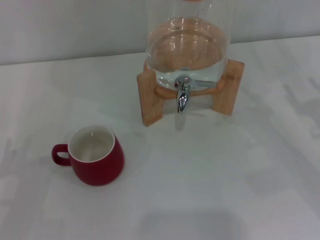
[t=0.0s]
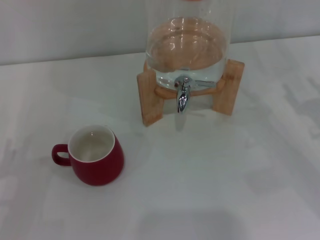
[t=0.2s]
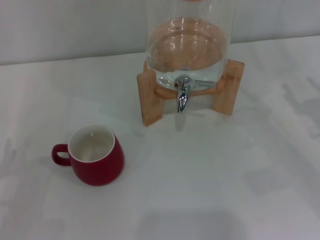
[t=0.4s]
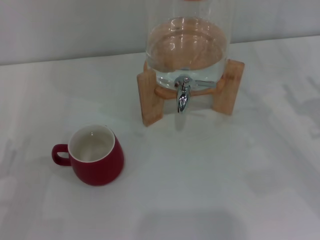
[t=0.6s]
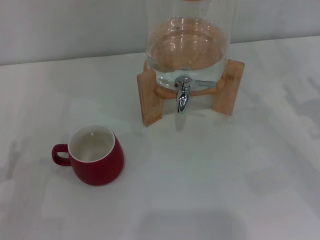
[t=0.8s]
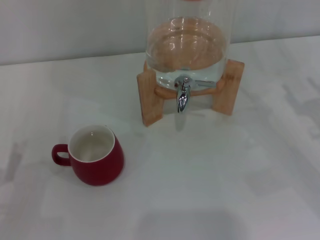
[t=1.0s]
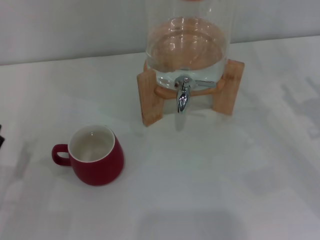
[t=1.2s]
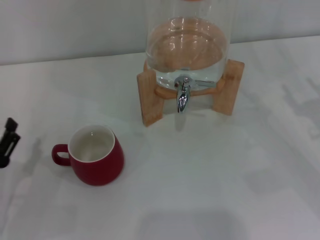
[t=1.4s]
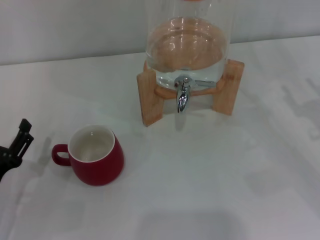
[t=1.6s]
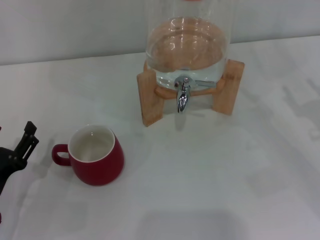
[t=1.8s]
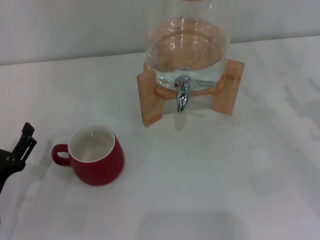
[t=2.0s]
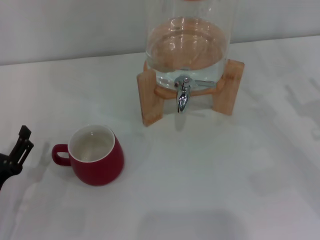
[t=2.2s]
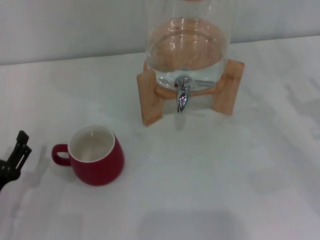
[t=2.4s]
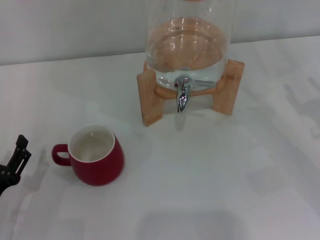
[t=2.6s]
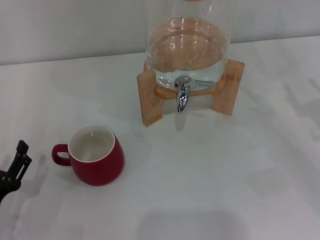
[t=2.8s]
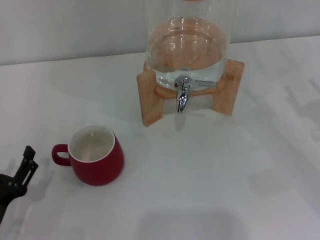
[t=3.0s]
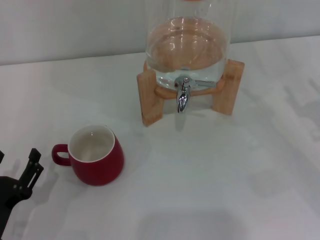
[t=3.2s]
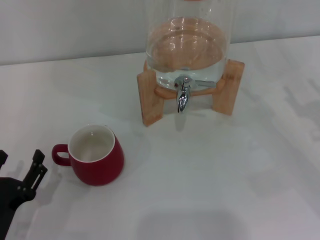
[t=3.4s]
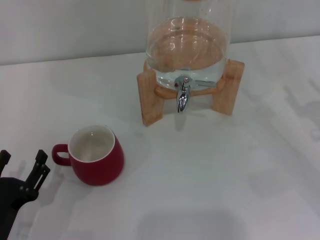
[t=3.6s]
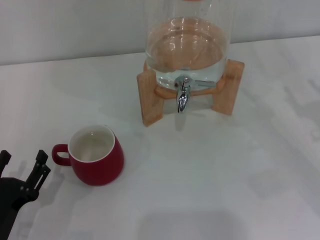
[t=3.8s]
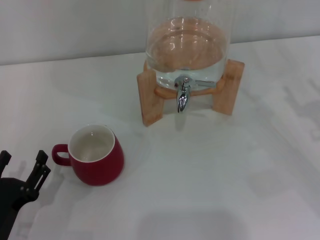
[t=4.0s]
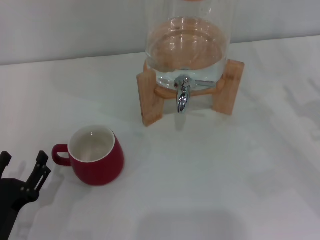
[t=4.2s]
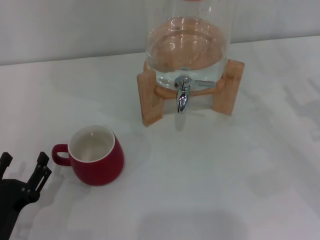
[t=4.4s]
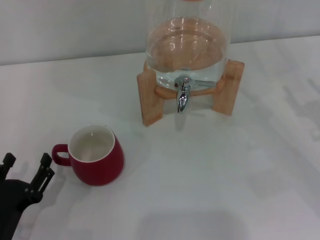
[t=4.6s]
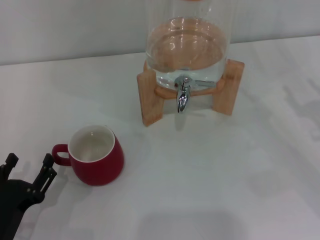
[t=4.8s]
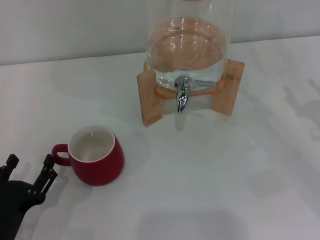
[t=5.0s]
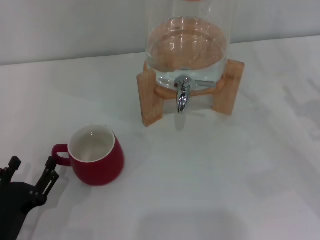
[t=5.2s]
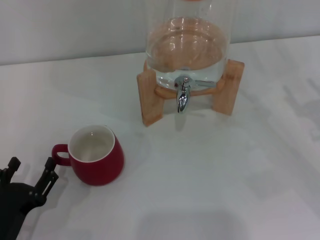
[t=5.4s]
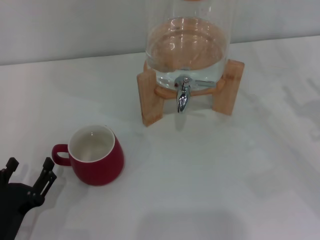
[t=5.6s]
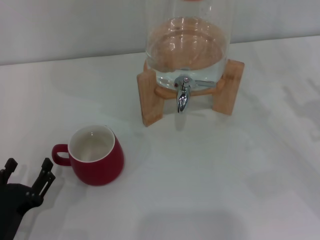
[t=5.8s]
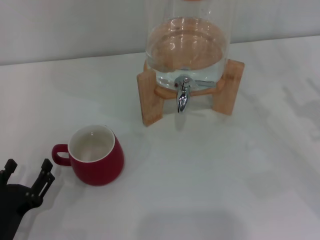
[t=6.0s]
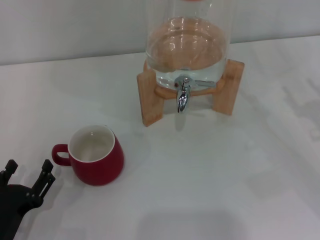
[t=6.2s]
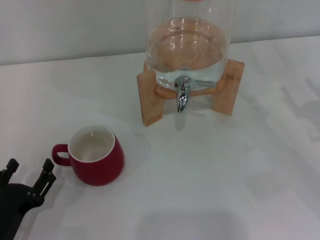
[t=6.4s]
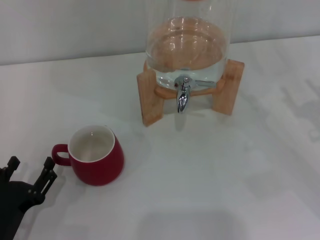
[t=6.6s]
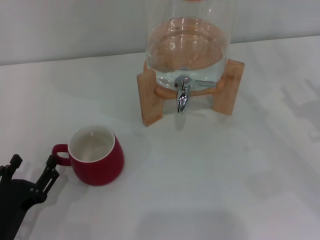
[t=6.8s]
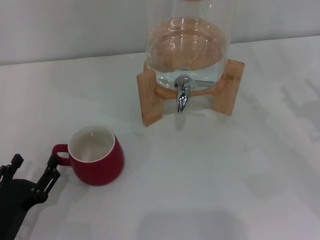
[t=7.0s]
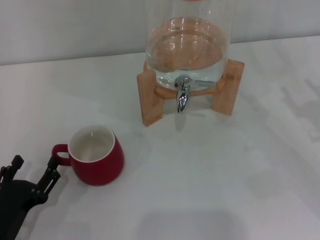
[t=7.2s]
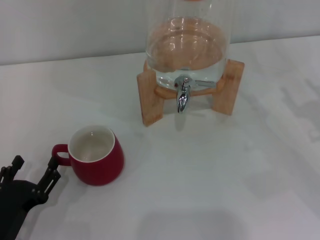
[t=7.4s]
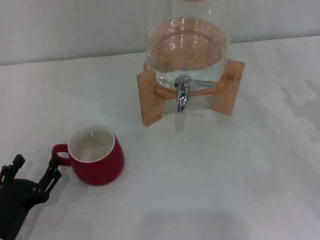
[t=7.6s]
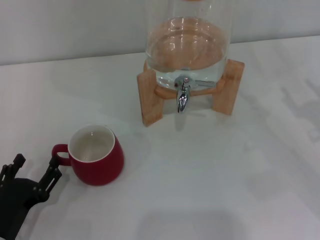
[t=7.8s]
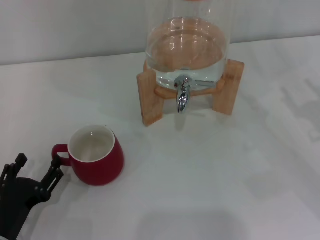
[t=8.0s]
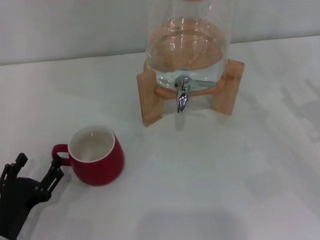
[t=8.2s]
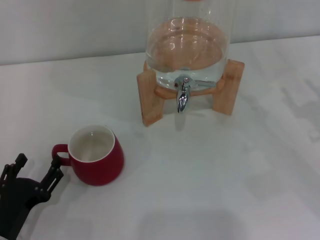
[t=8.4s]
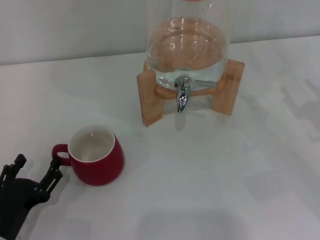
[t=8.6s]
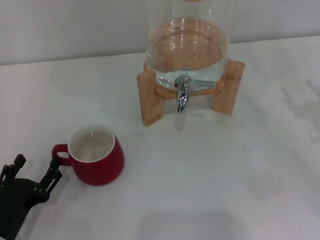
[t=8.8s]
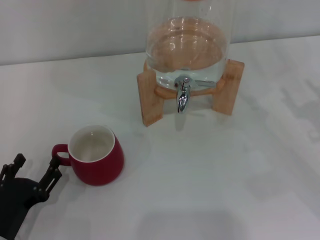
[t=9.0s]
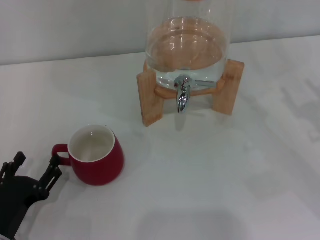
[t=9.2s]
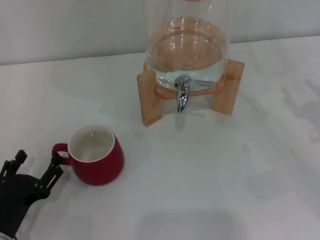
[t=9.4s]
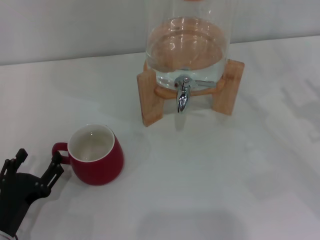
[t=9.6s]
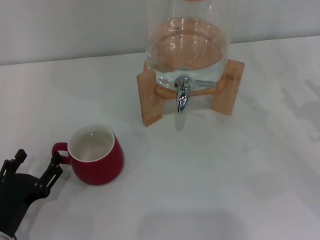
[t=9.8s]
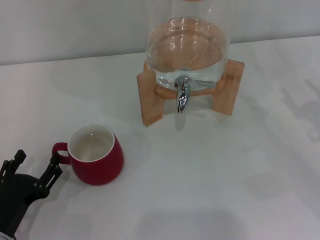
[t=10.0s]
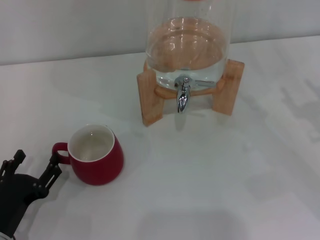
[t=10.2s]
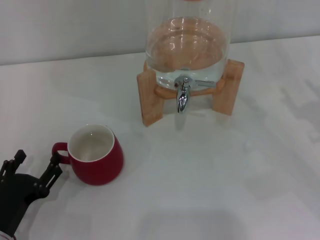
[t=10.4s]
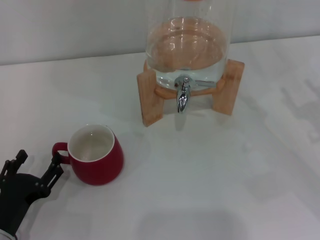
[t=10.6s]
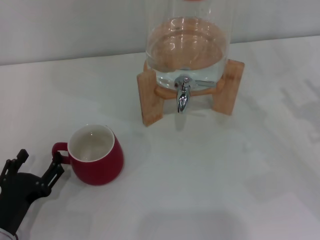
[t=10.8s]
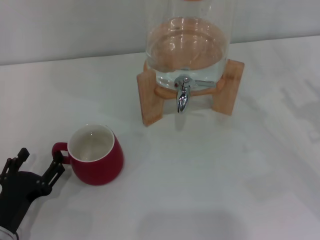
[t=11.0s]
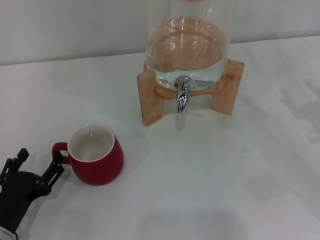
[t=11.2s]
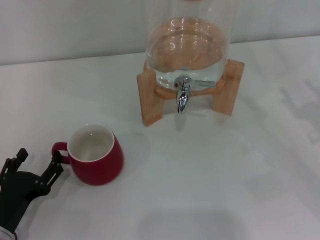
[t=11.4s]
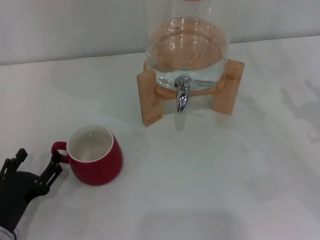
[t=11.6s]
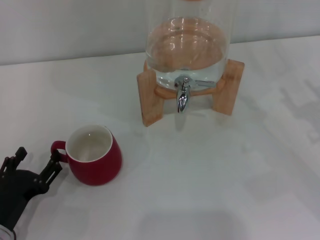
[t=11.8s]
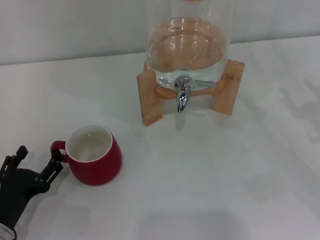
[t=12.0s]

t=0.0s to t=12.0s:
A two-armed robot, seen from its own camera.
Task of the whole recording: the left gripper pick up the red cup and place it horizontally under the faucet, the right gripper turn on the faucet to fill the cup, and then turn off the faucet.
t=0.0s to t=3.0s: There are only small adjustments of the grippers.
t=3.0s to t=4.4s: The grippers move only a little.
t=4.4s to t=6.0s: Both grippers stay about where they are.
t=6.0s to t=7.6s: Both grippers stay about where they are.
t=7.6s to t=10.4s: Both grippers stay about where they are.
t=10.4s to t=12.0s: Both grippers stay put.

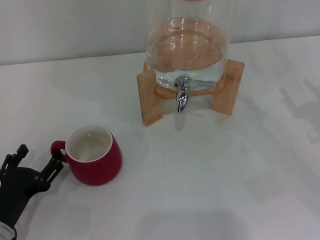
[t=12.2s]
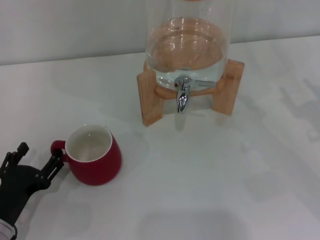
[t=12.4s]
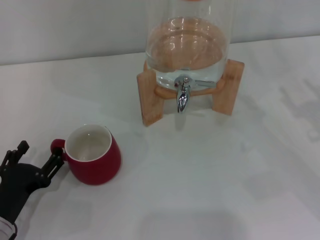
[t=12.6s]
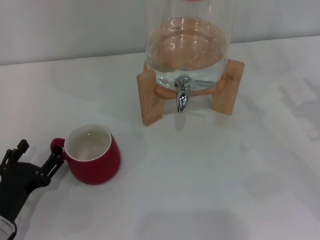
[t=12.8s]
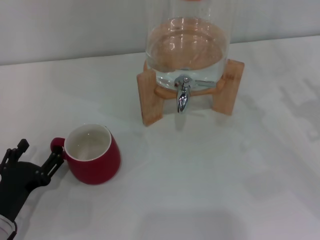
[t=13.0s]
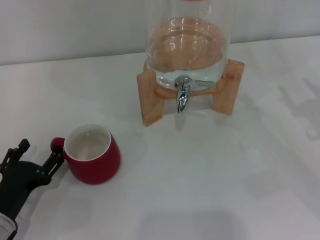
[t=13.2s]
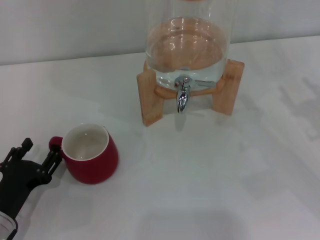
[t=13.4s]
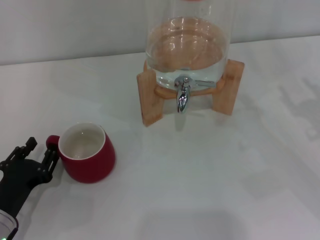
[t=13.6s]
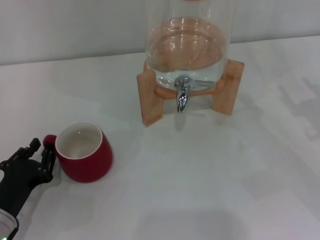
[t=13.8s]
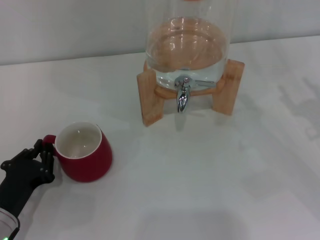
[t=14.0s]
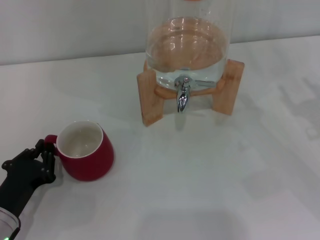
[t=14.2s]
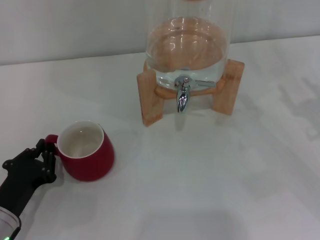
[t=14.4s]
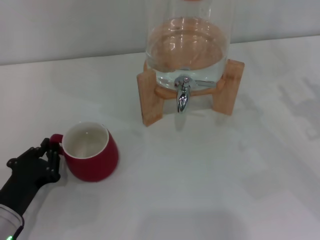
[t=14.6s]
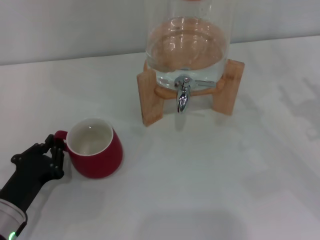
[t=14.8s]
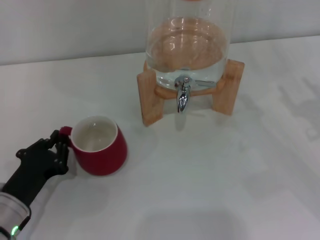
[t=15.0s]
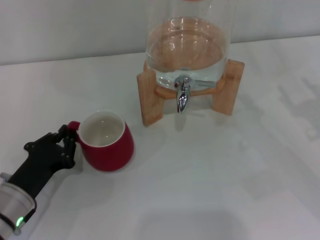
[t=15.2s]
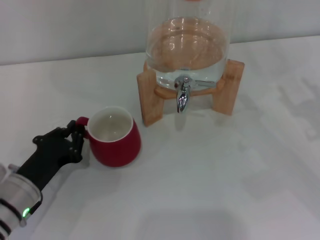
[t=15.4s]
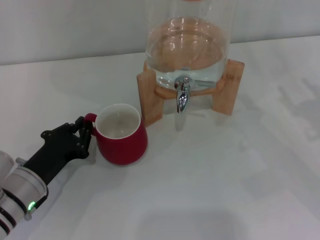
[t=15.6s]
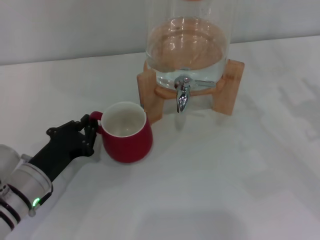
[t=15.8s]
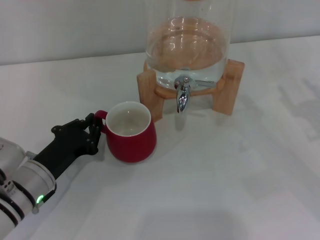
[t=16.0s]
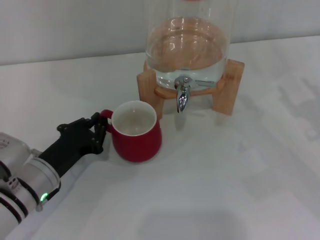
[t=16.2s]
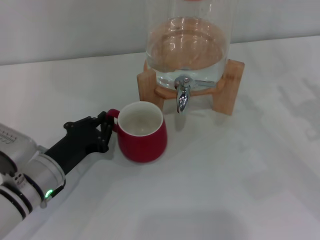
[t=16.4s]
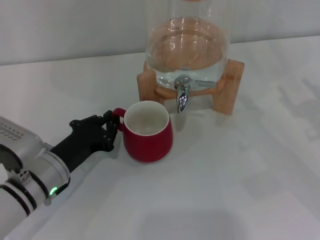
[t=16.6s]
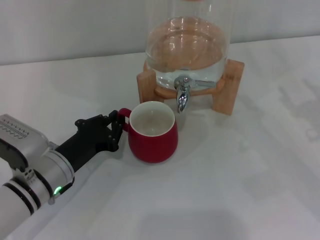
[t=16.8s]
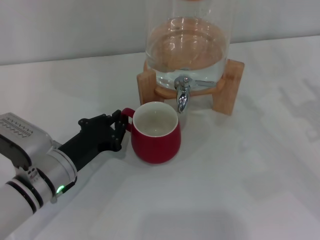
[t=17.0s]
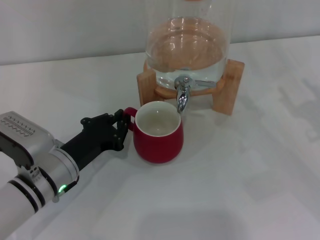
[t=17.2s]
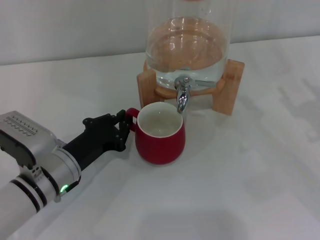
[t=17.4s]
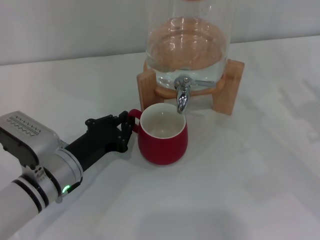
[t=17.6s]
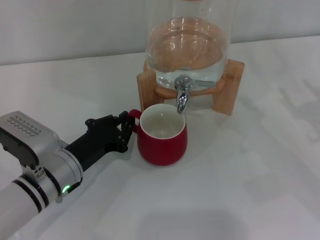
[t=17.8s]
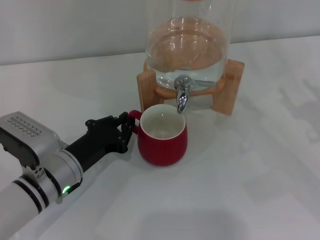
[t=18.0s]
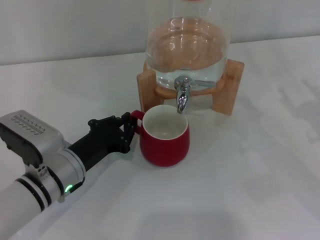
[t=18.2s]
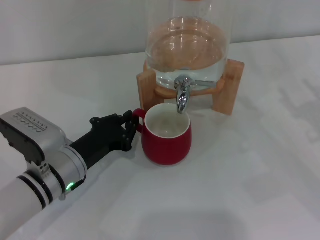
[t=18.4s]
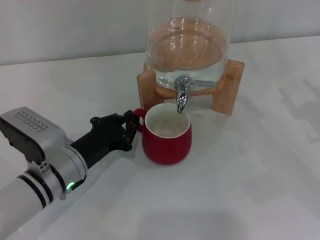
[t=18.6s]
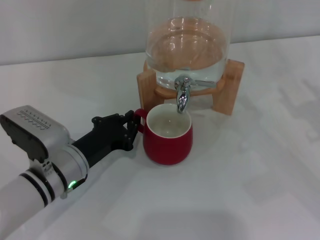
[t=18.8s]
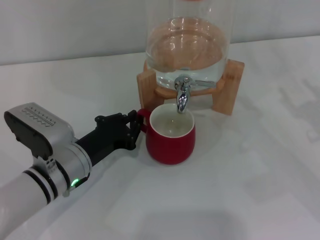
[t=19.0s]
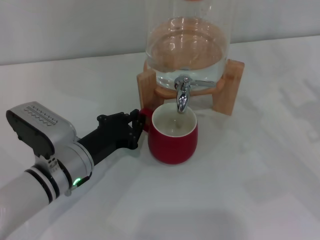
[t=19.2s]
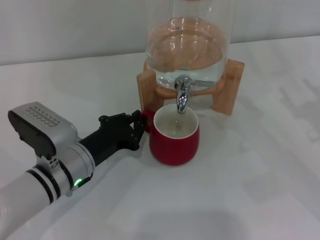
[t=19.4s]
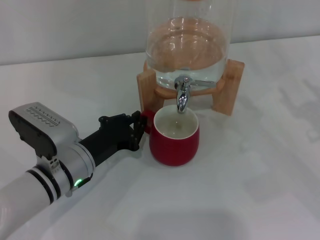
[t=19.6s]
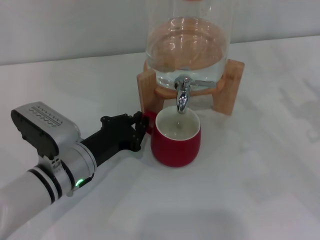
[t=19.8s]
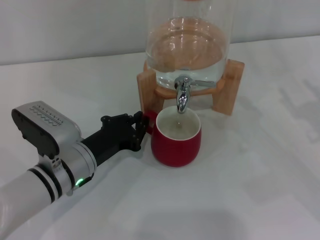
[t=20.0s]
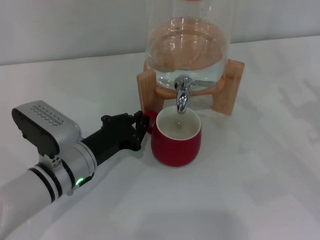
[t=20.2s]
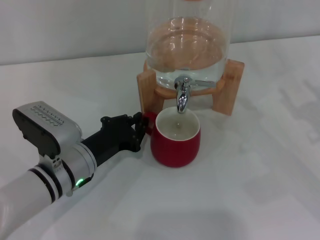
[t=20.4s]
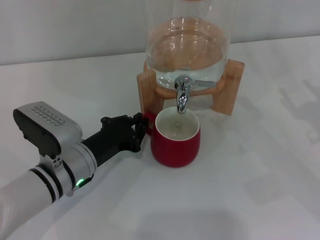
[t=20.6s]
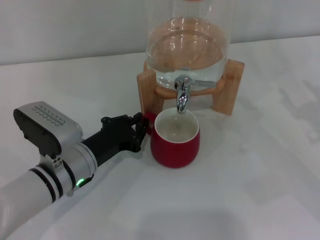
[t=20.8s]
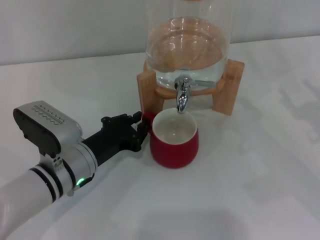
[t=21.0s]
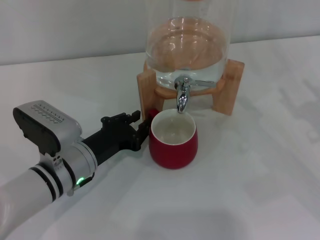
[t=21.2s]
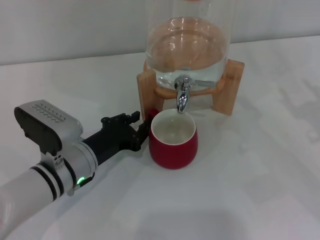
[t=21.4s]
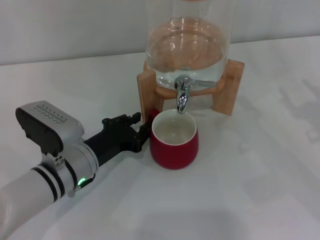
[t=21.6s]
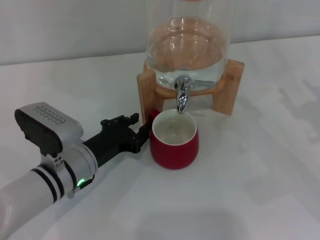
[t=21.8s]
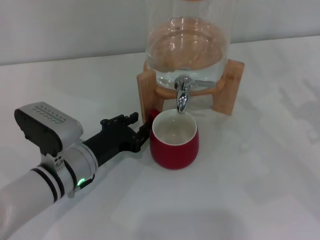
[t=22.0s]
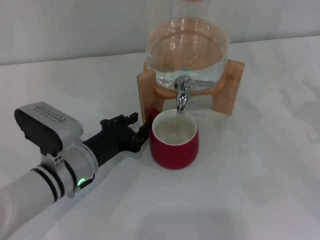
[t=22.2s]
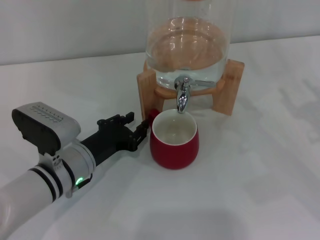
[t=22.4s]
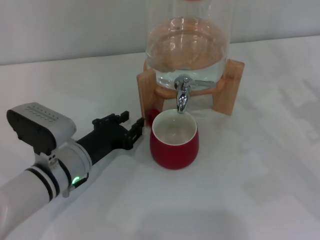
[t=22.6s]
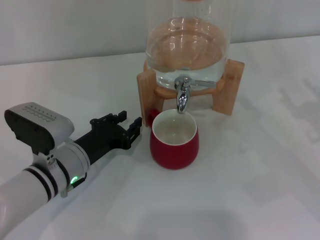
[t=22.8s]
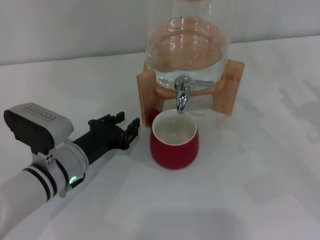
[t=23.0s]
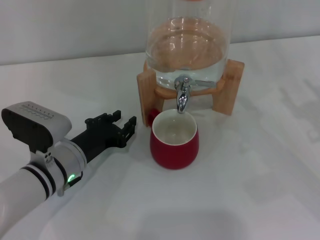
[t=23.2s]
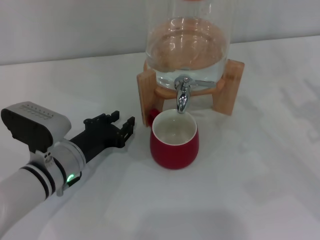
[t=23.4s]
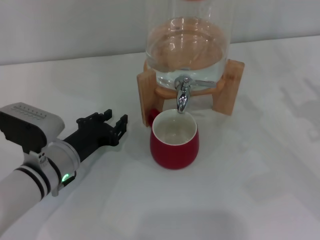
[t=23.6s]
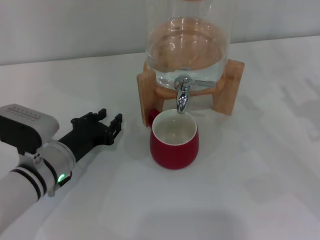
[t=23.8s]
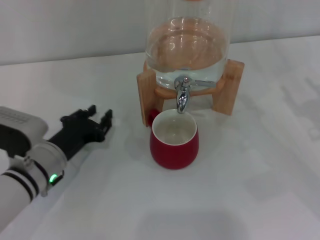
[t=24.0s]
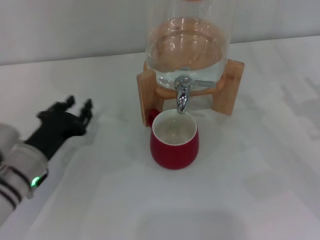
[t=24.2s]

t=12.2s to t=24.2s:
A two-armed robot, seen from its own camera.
Task of the whole recording: the left gripper pick up the red cup and place it horizontally under the faucet, the right gripper turn on the faucet to fill the cup, and then turn off the faucet.
Step, t=12.2s to t=23.4s: Move the cup beneath the water dispenser nozzle with the left gripper.
t=12.2s to t=13.8s: The left gripper closes.
t=13.8s to t=15.2s: The left gripper closes up.
t=15.2s to t=16.6s: The left gripper is displaced to the right by some 5 cm.
t=16.6s to t=19.8s: There are only small adjustments of the grippers.
t=19.8s to t=21.2s: Both grippers stay put.
t=21.2s to t=22.6s: The grippers make only small movements.
t=22.6s to t=24.2s: The left gripper is displaced to the left by about 5 cm.
